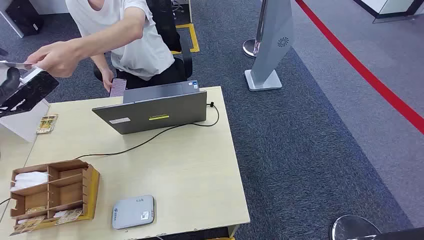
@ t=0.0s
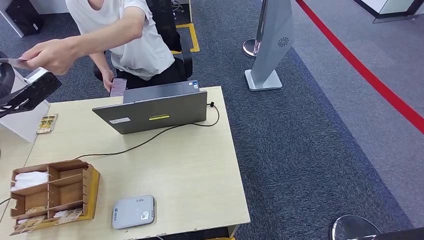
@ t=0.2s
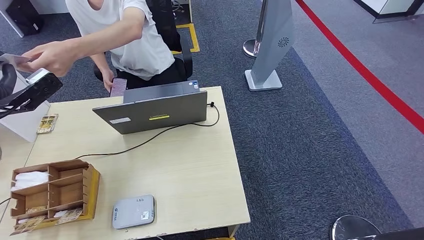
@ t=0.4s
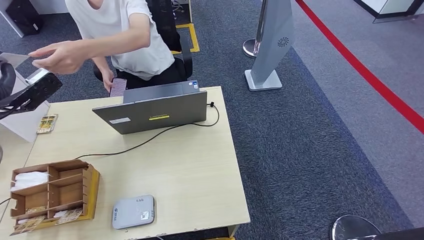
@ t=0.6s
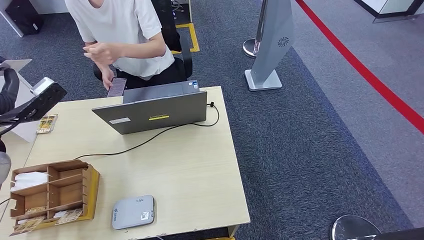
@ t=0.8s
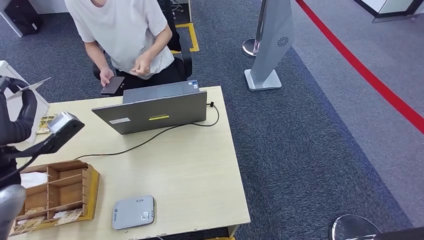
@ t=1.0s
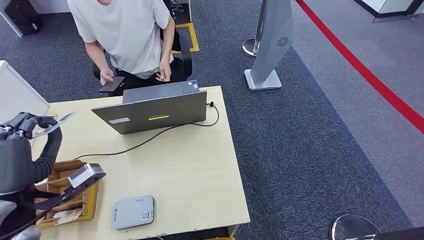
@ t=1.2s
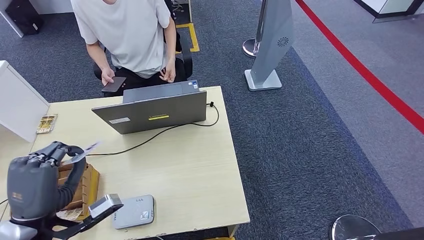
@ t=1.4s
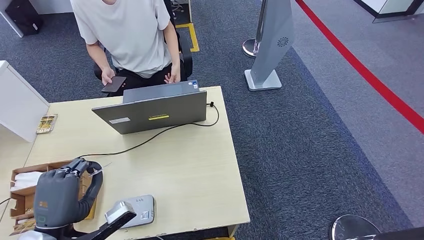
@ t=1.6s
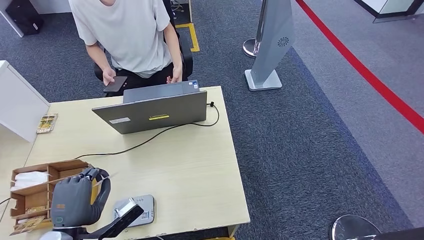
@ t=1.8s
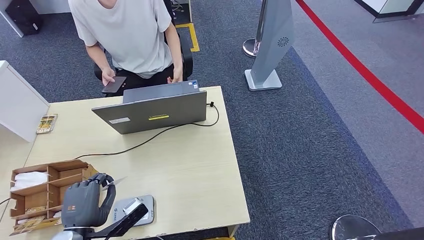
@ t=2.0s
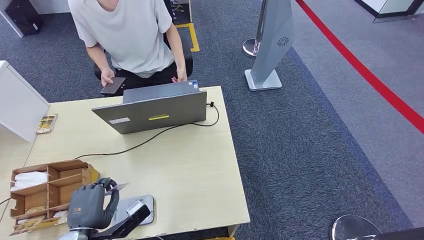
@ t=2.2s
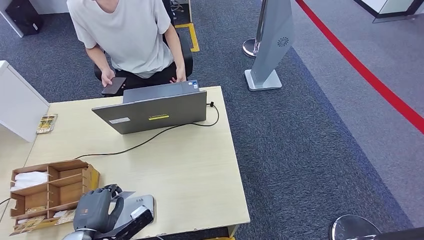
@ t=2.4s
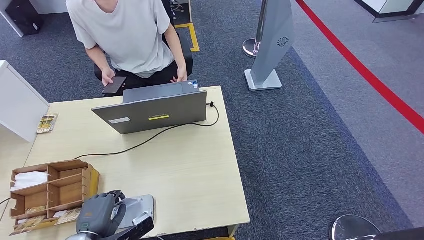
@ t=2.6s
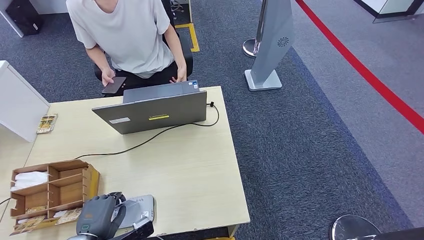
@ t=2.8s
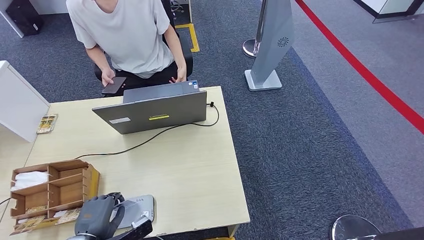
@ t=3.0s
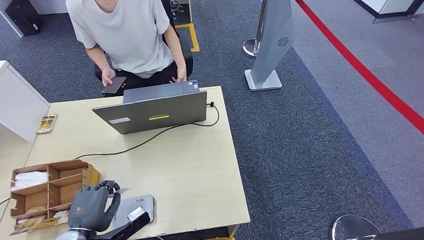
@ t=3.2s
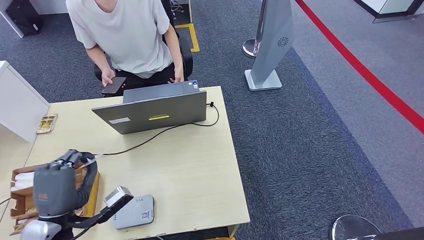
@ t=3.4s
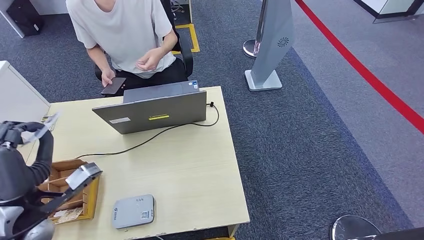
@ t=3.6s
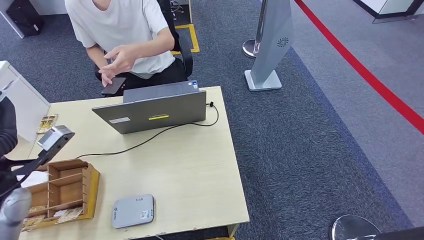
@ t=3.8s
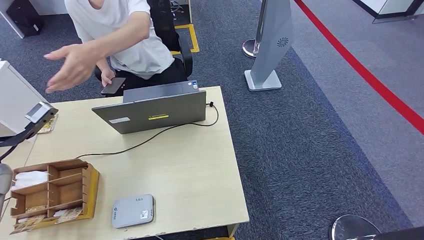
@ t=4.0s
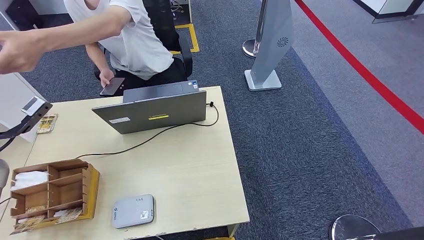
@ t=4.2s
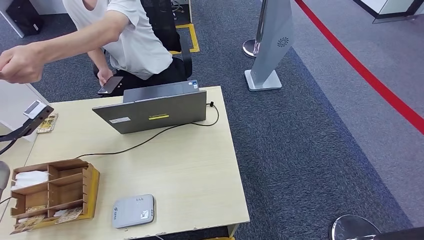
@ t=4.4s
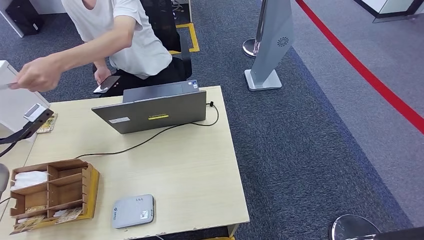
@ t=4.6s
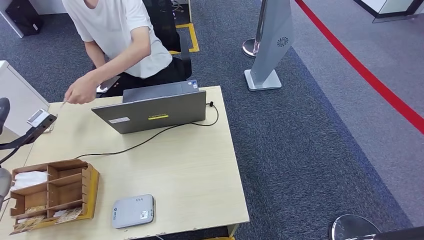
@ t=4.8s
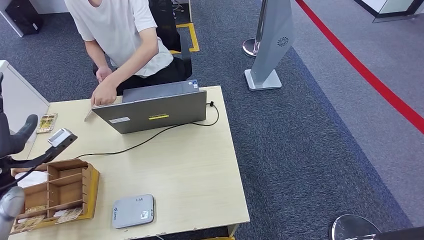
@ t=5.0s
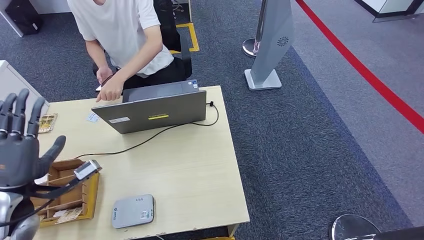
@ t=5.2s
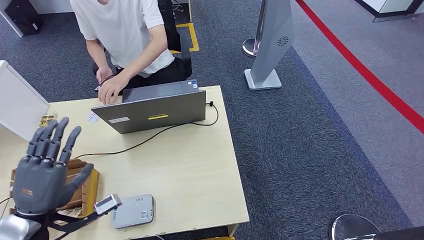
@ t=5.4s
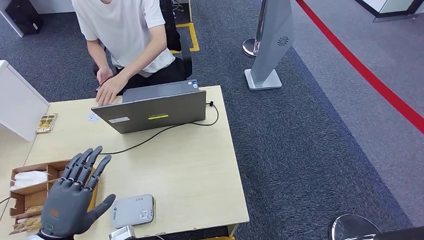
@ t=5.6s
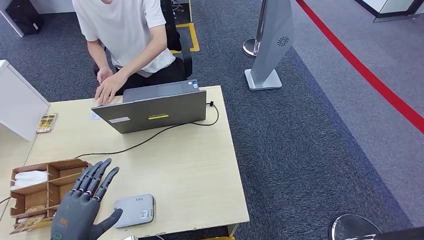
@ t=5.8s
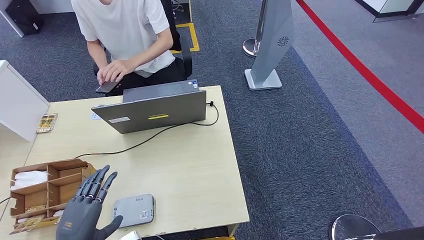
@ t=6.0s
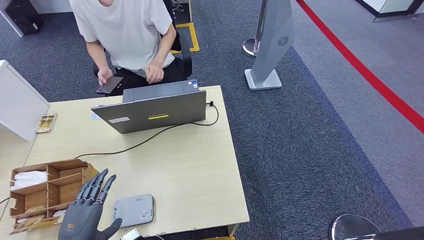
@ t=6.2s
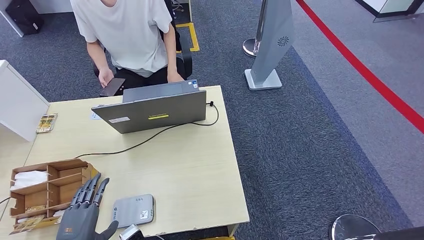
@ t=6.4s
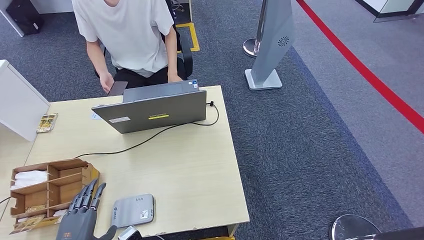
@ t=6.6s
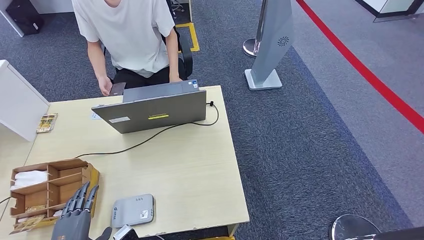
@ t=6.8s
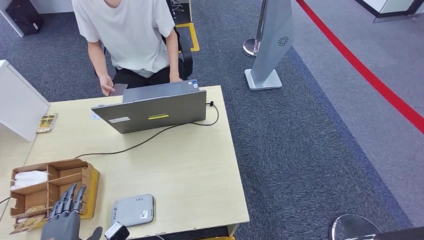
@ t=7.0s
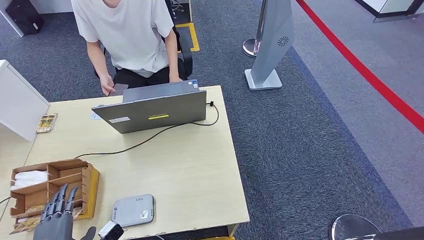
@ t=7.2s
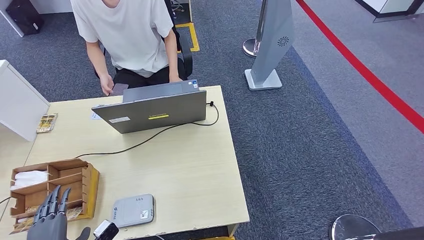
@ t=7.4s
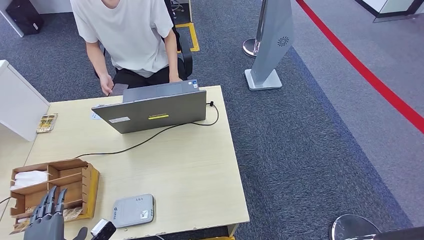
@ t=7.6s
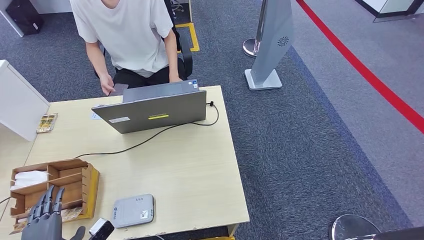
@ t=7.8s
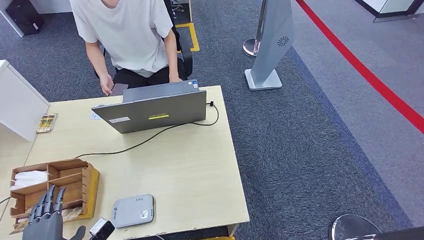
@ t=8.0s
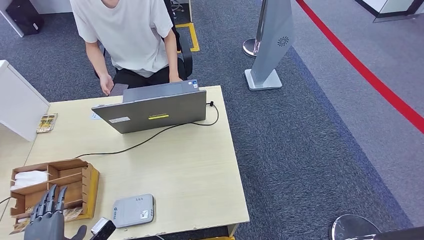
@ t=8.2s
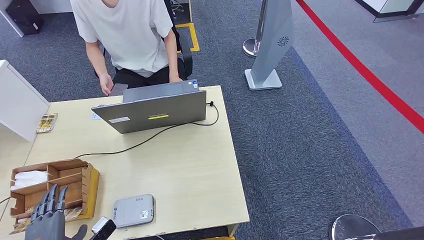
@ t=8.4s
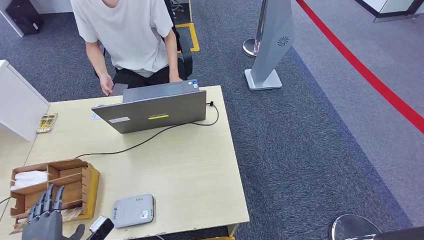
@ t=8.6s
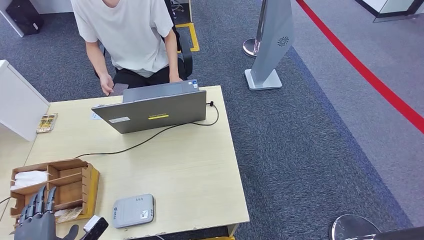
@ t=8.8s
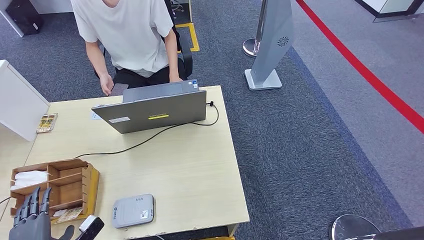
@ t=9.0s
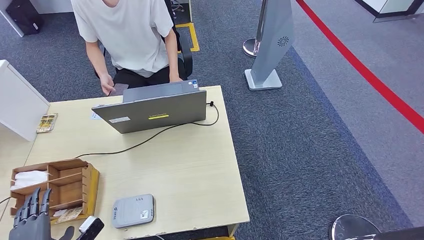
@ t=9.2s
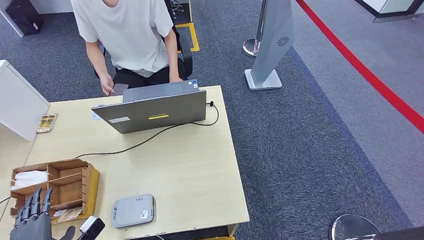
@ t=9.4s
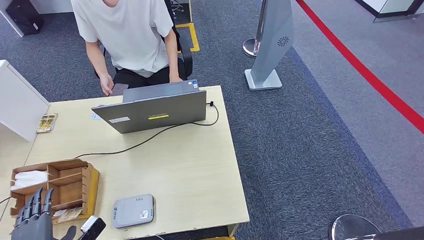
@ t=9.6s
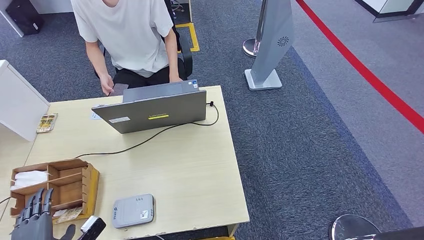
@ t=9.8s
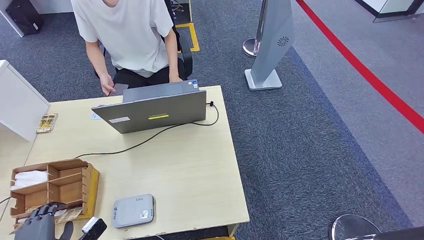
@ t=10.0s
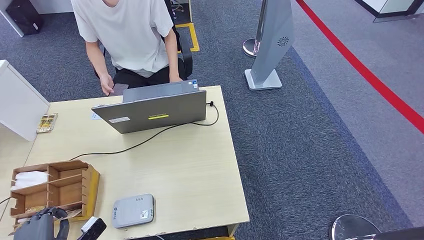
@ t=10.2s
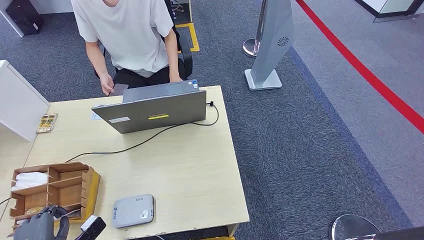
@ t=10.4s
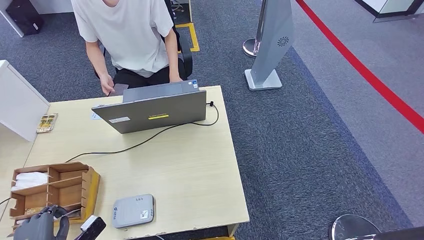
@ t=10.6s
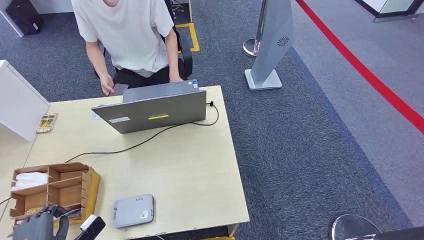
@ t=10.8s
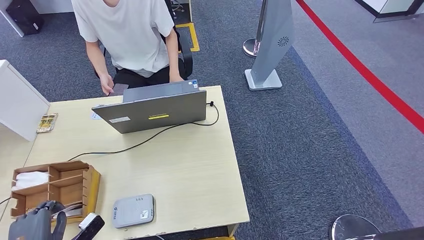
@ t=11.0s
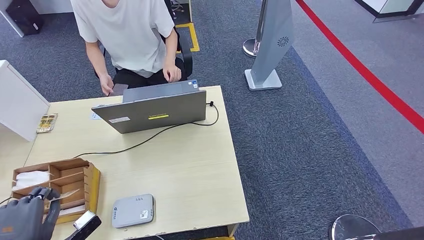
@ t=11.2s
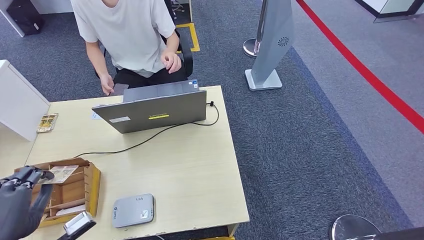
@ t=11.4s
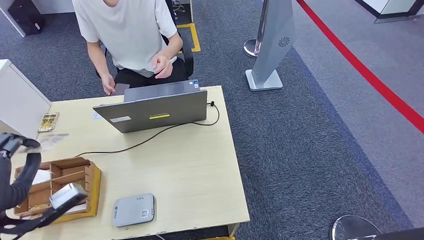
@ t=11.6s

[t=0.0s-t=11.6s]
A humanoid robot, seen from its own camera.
Step, t=0.0s to t=1.6s: Take the ID card from the person's hand.
Step, t=1.8s to t=2.4s: Place the ID card on the card reader.
Step, t=2.6s to t=5.6s: Hand the ID card to the person.
t=1.4s to t=2.8s: The left hand is displaced downward by some 15 cm.
t=2.8s to t=4.4s: The left hand travels forward, upward and to the left by roughly 30 cm.
t=4.4s to t=5.8s: The left hand heads backward, to the right and downward, covering roughly 30 cm.
t=5.8s to t=7.2s: The left hand is displaced downward by some 5 cm.
t=7.2s to t=10.2s: The hands make only small movements.
t=10.2s to t=11.6s: The left hand moves upward, roughly 20 cm.

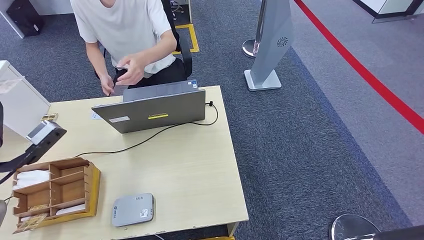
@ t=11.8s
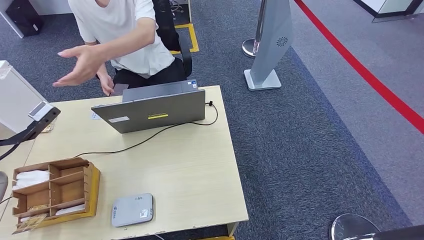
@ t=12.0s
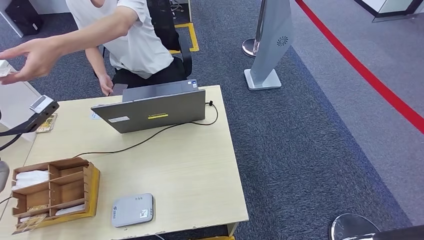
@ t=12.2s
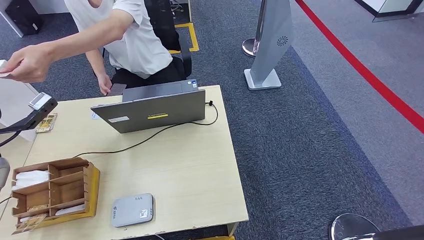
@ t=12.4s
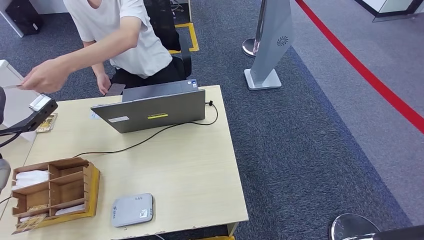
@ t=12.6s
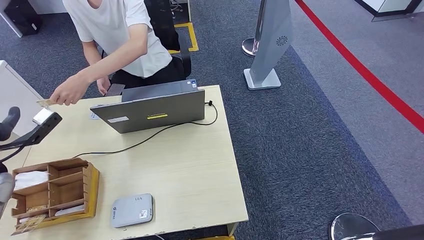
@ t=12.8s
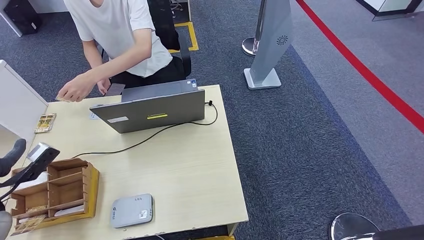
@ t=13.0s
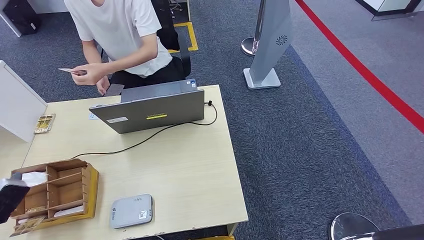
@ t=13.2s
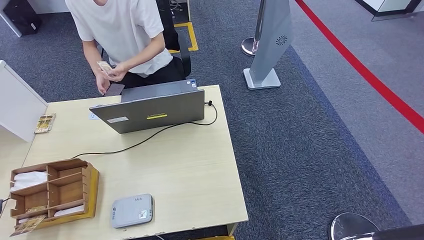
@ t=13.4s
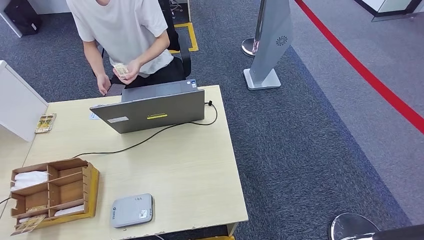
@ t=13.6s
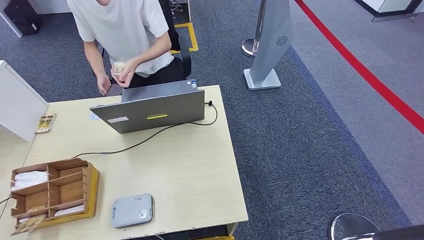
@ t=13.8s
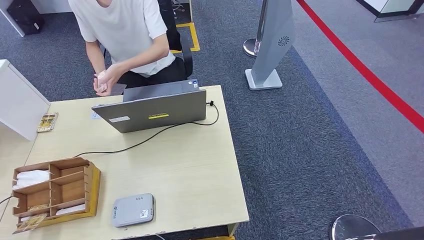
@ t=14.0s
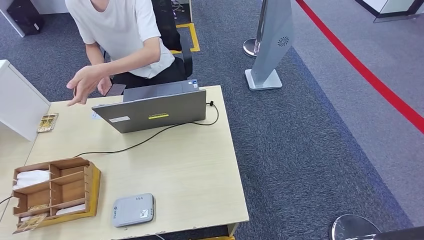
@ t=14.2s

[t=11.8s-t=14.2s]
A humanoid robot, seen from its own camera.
Step, t=12.0s to t=14.2s: Hand the room key to the person.
t=11.8s to t=13.0s: The left hand moves downward and to the left, some 10 cm.
t=13.0s to t=14.2s: The left hand moves backward and downward, approximately 35 cm.
